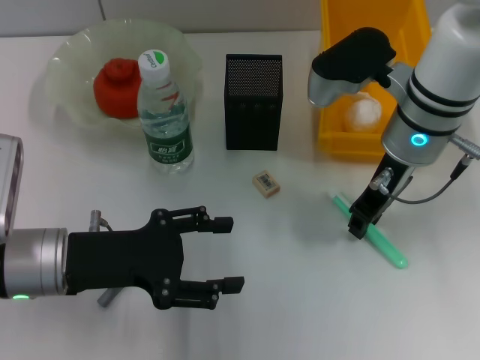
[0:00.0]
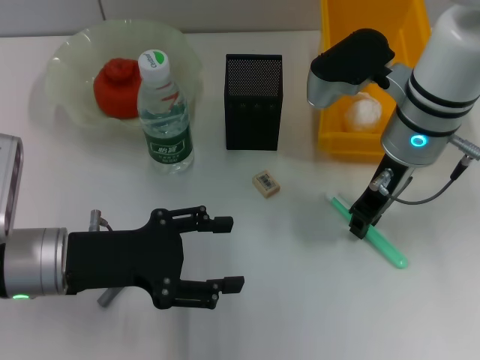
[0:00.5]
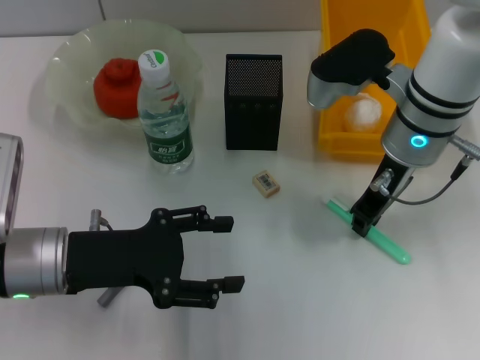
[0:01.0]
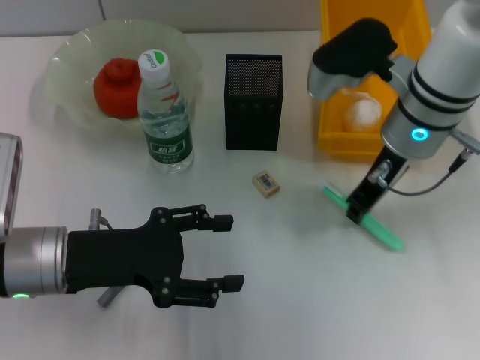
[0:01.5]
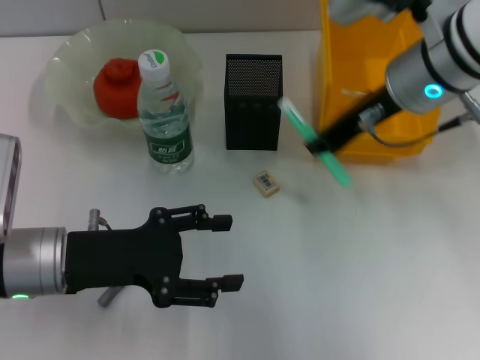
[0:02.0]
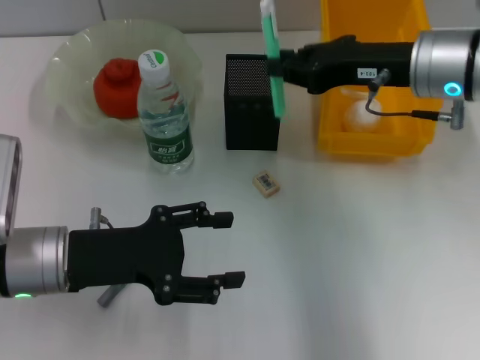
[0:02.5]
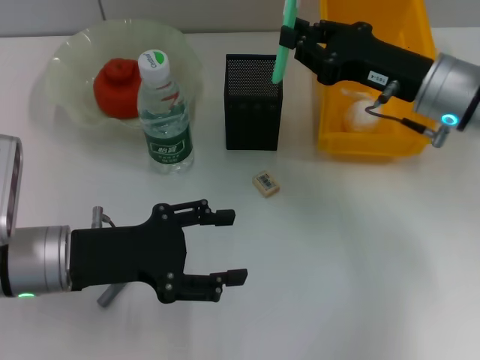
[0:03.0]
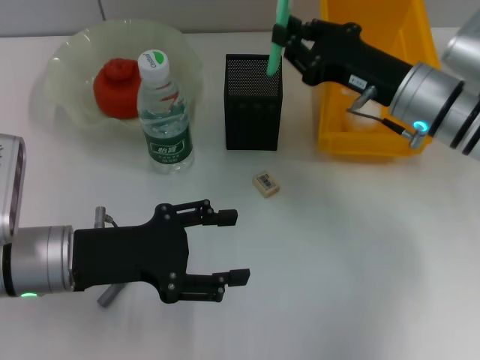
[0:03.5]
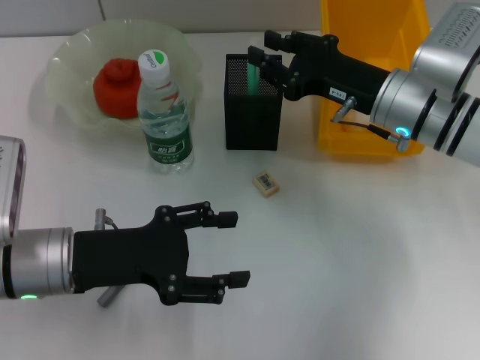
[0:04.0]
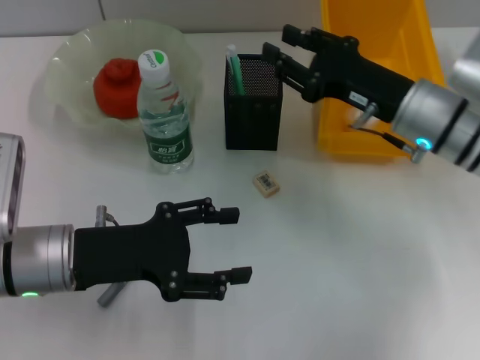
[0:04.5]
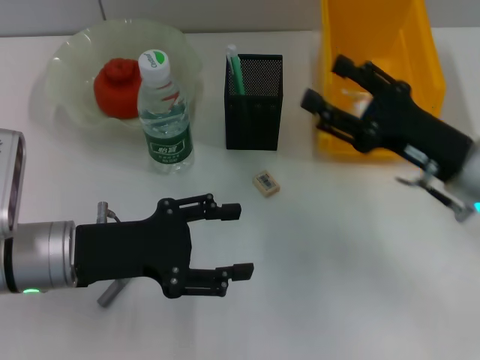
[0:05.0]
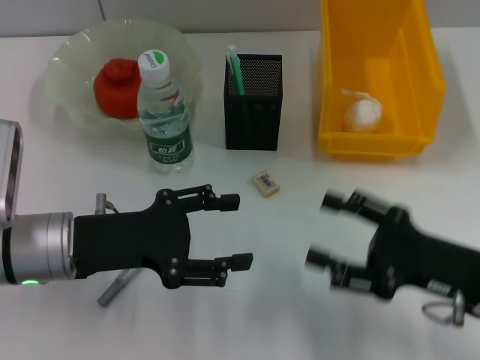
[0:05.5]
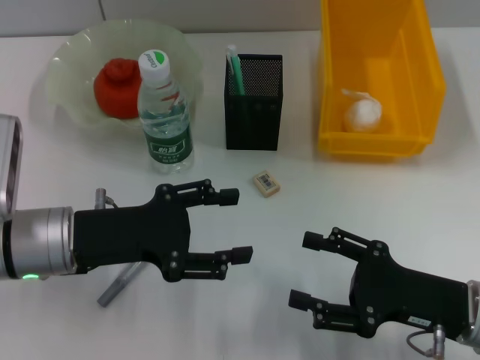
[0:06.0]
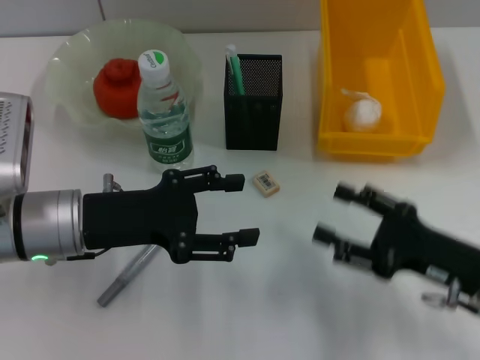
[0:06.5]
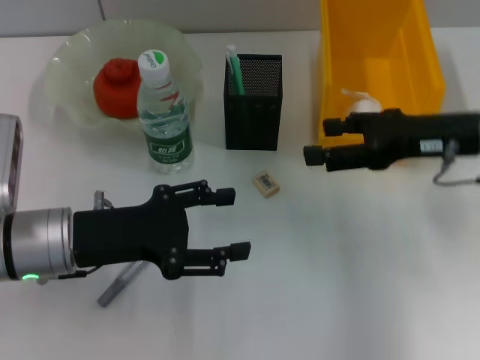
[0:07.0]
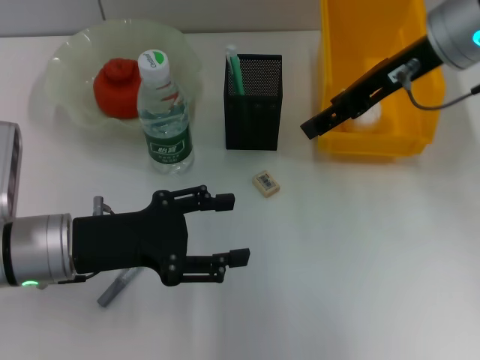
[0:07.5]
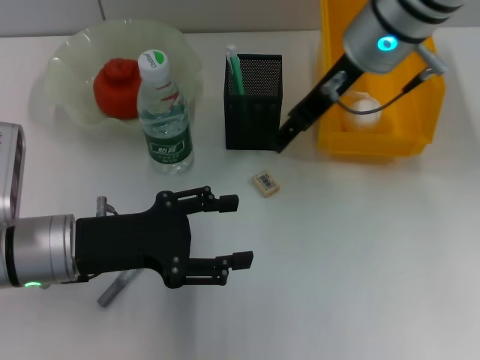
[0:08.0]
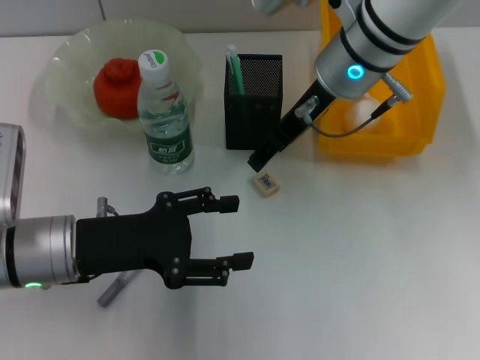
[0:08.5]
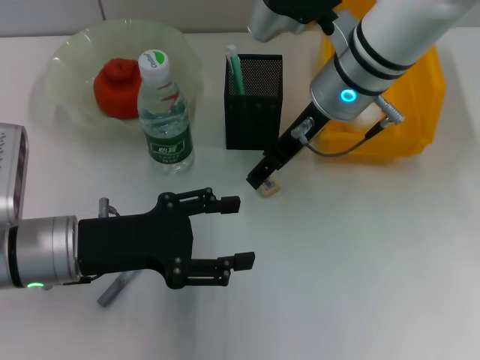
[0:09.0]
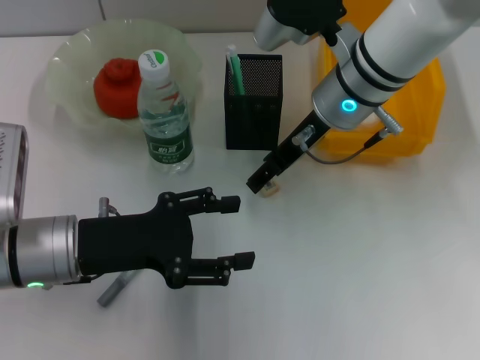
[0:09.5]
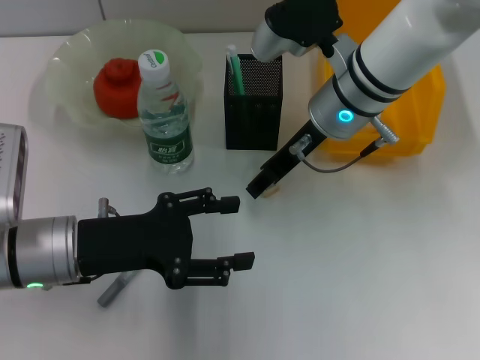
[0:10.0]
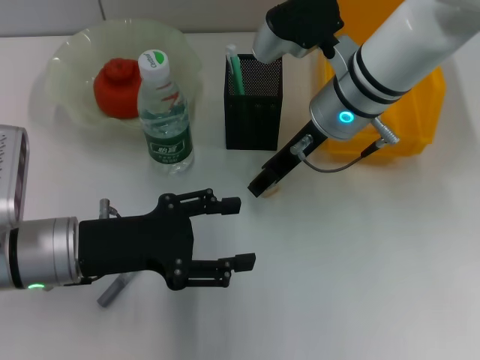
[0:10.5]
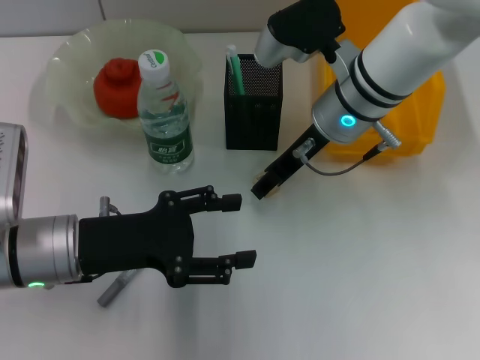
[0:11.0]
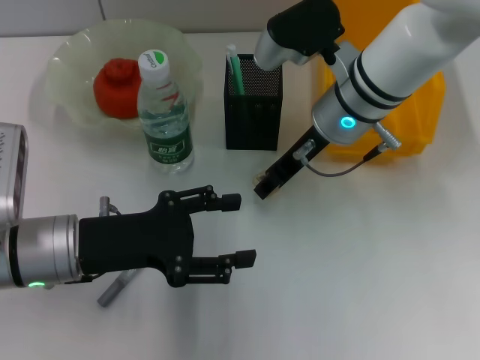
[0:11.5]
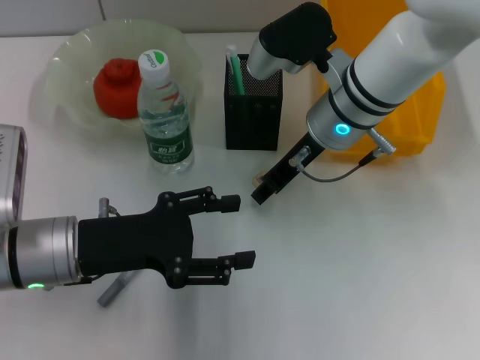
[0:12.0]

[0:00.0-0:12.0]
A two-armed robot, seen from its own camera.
Step, 0:01.0 to 0:04.0: Place the blue utility knife into the pen holder with the right hand.
0:00.0 to 0:02.0: The right gripper heads upward, covering about 5 cm.
0:02.0 to 0:04.0: The right gripper heads downward, covering approximately 10 cm.
0:04.0 to 0:06.0: The right gripper travels backward by some 20 cm, and opens up.
0:06.0 to 0:08.0: The right gripper moves forward, upward and to the left, about 30 cm.
0:08.0 to 0:10.0: The right gripper moves downward, roughly 5 cm.
0:10.0 to 0:12.0: Both grippers stay put.

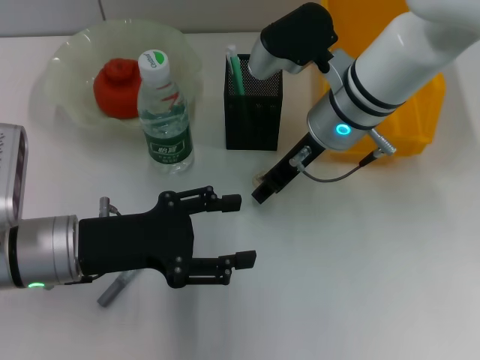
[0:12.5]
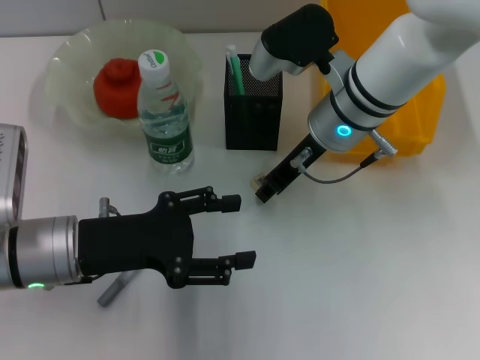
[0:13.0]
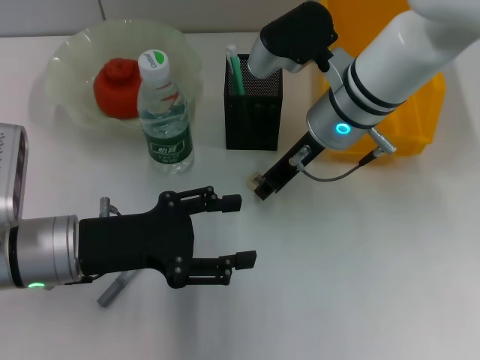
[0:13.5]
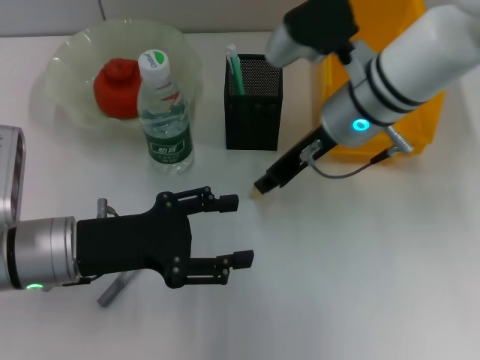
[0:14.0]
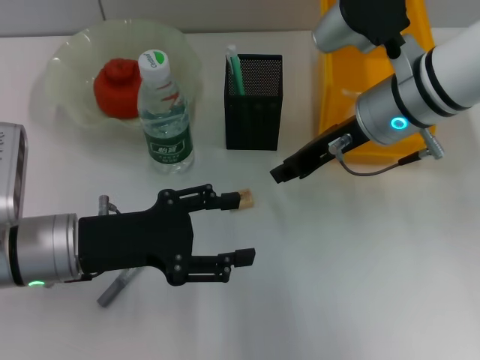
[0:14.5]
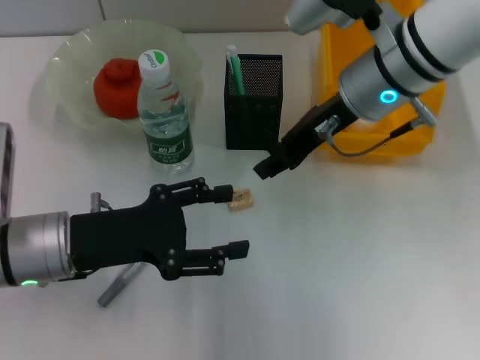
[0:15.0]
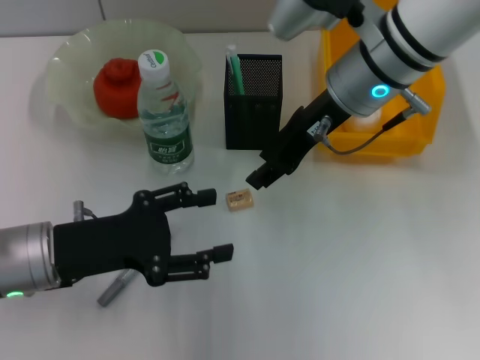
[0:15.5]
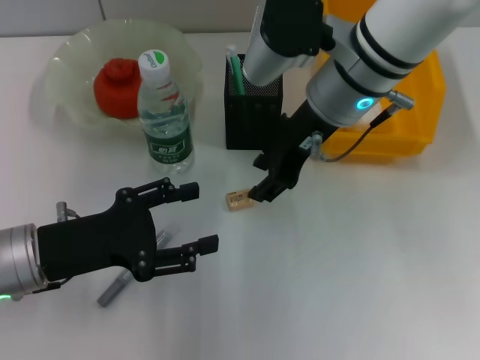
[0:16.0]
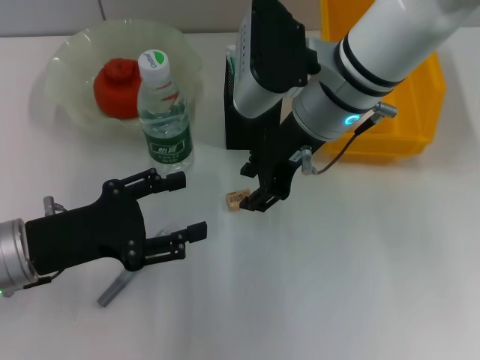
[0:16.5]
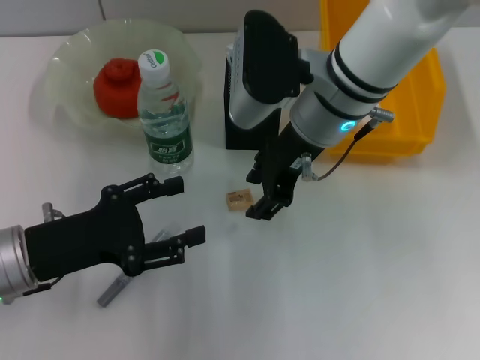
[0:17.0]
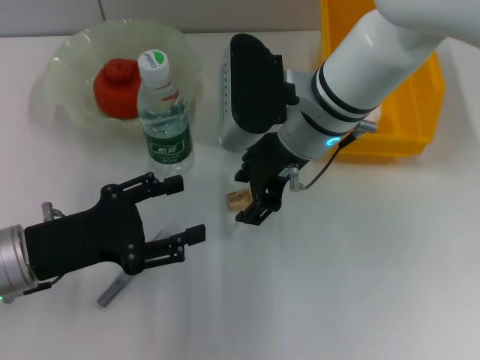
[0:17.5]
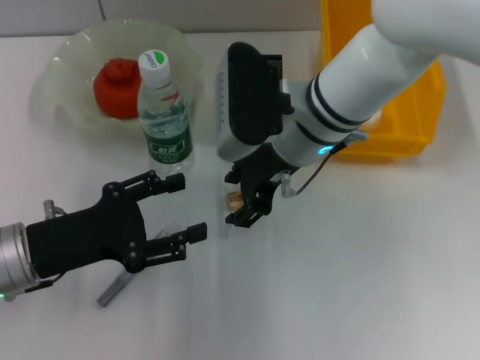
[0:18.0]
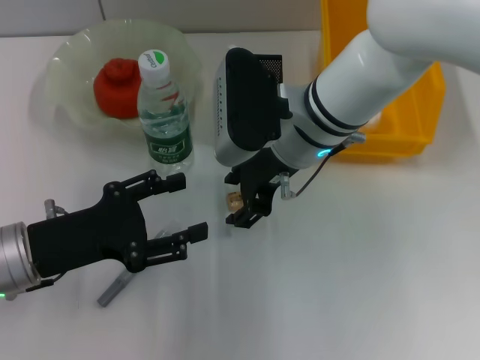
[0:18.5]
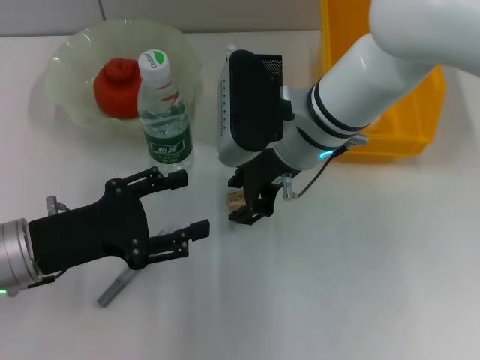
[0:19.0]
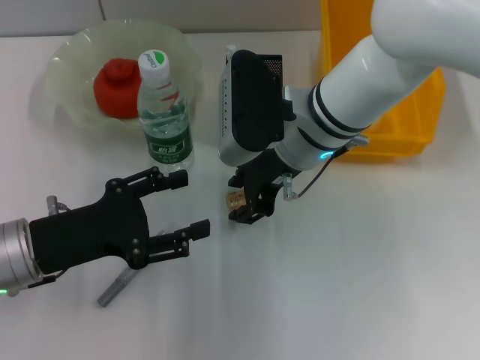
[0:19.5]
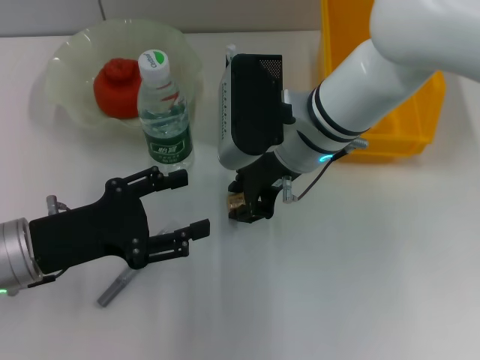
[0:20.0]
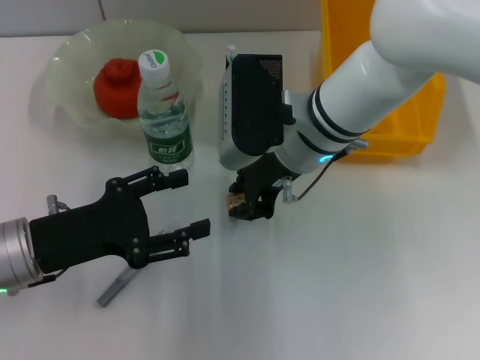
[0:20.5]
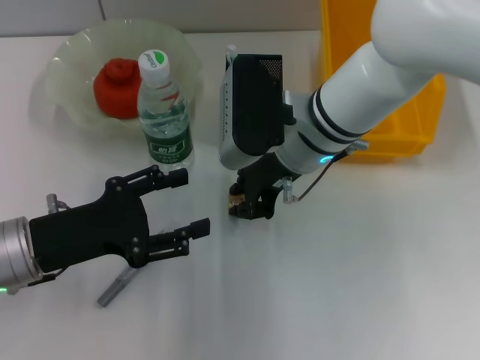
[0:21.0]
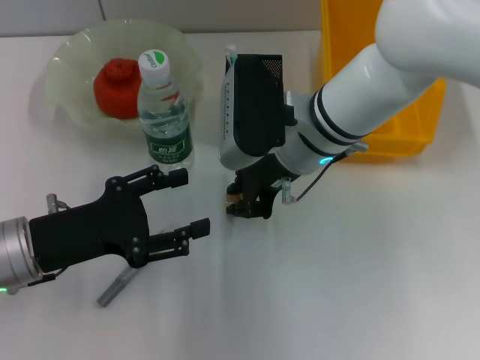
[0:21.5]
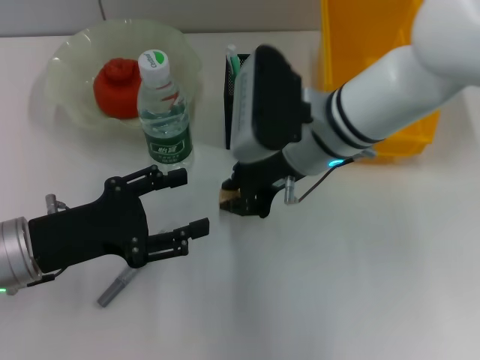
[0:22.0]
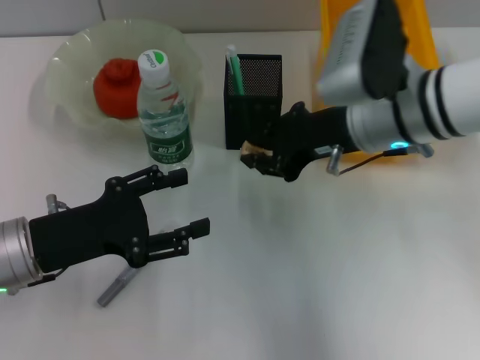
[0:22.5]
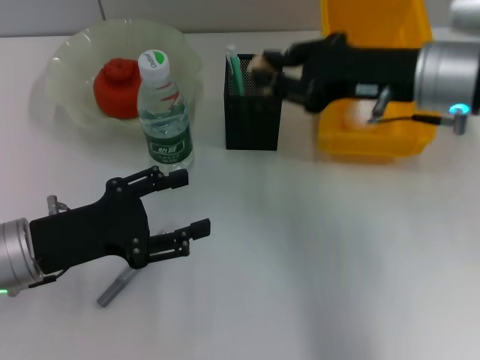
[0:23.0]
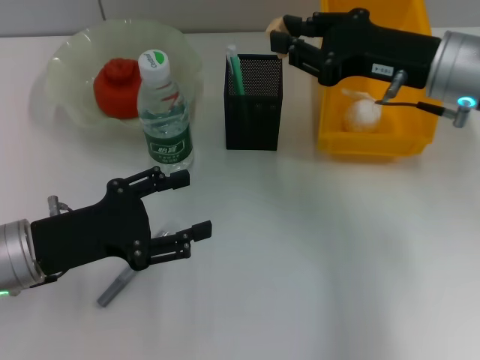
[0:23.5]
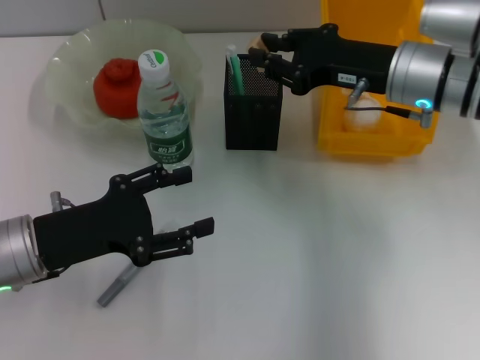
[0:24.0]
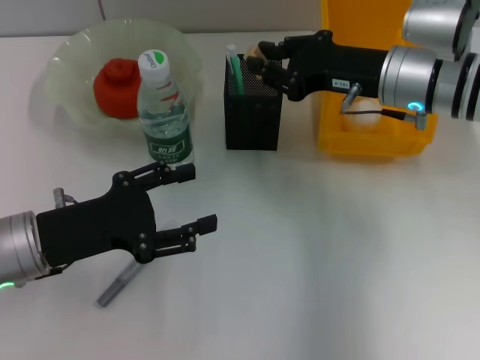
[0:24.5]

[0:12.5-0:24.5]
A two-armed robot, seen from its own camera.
Step, 0:12.5 to 0:21.0: Grab the eraser with the right hand.
0:12.5 to 0:14.5: The right gripper shifts by approximately 5 cm.
0:14.5 to 0:16.5: The right gripper shifts some 5 cm to the left, and opens.
0:16.5 to 0:18.5: The grippers move only a little.
0:18.5 to 0:20.5: The right gripper closes its fingers.
0:20.5 to 0:22.5: The right gripper moves to the right, roughly 10 cm.
0:22.5 to 0:24.5: The right gripper changes place by roughly 5 cm.

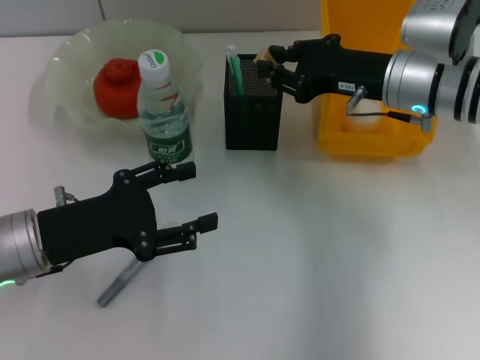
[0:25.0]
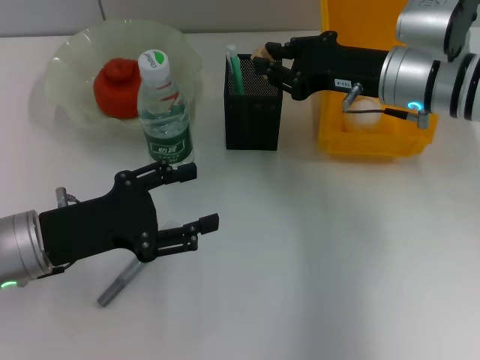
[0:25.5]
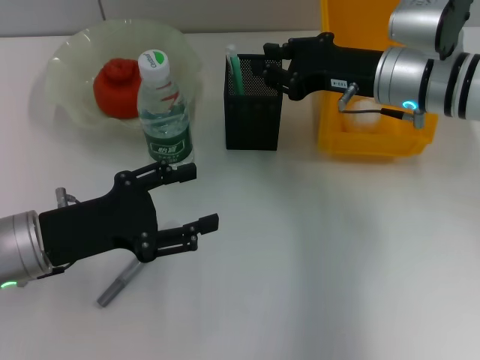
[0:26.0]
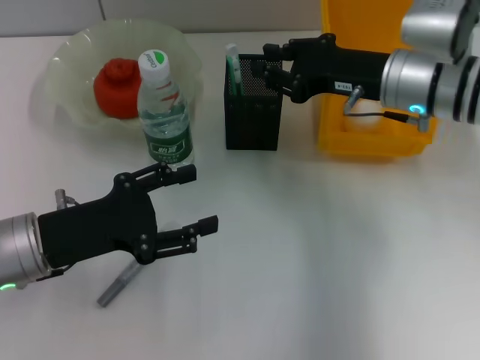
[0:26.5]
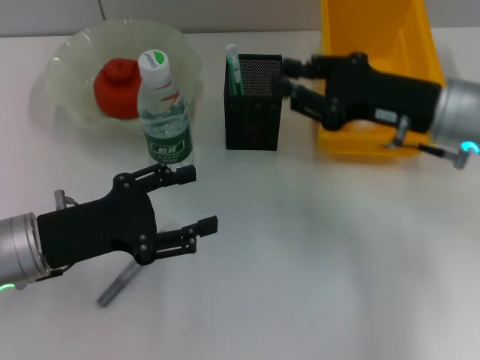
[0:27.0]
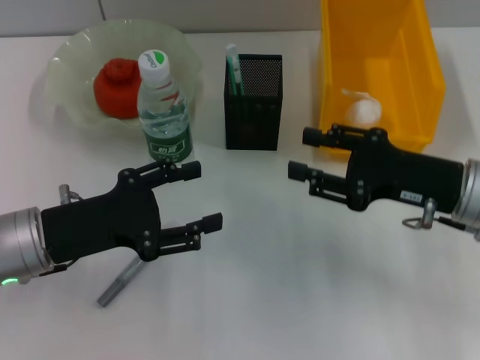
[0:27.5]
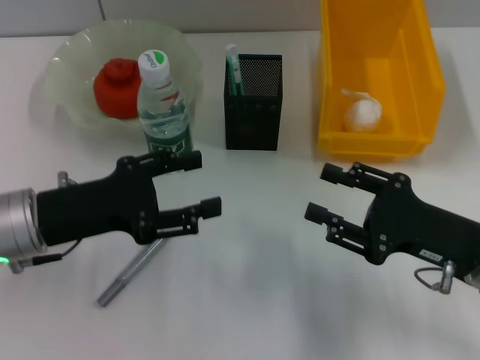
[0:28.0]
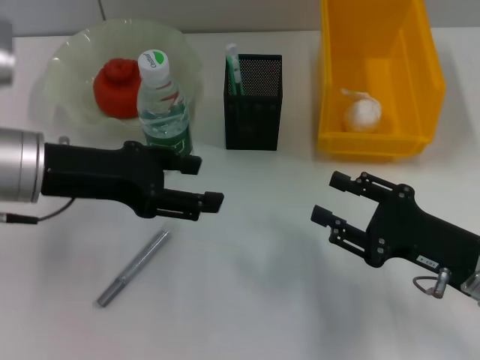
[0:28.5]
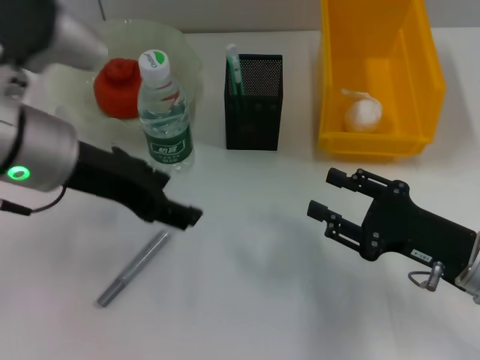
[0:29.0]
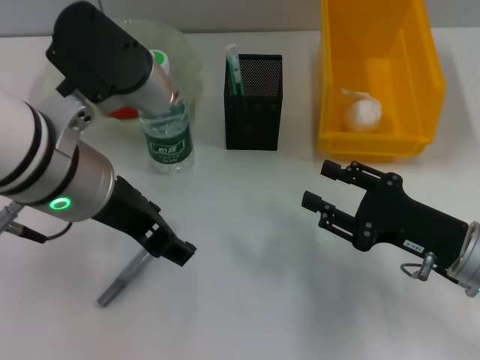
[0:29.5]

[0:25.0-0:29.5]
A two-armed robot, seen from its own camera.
0:25.0 to 0:27.0: The right gripper goes roughly 5 cm backward.
0:27.0 to 0:29.5: The right gripper travels downward and backward by roughly 15 cm, and opens up, while the left gripper travels upward and to the right by roughly 15 cm.
